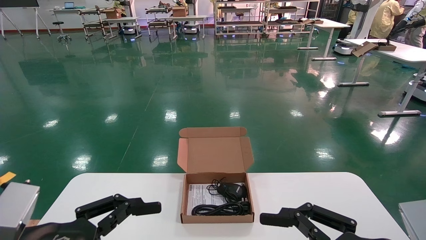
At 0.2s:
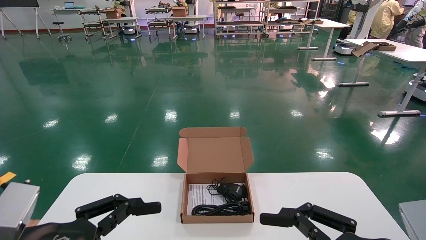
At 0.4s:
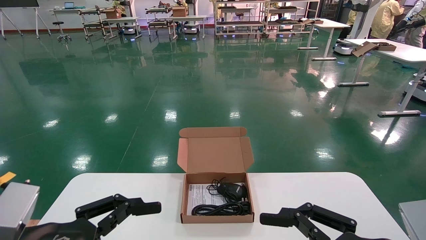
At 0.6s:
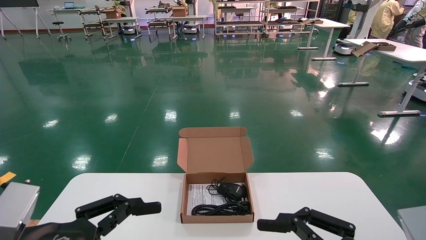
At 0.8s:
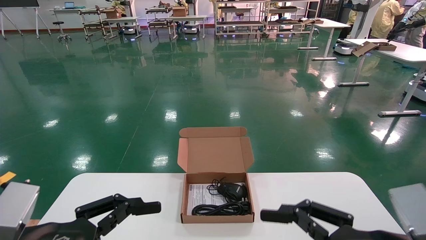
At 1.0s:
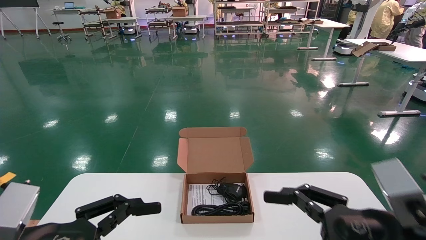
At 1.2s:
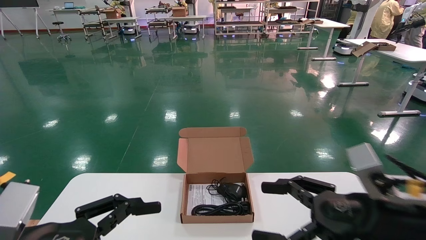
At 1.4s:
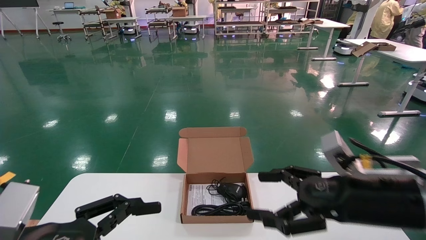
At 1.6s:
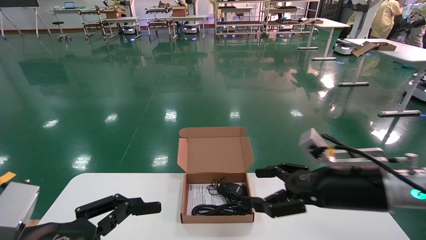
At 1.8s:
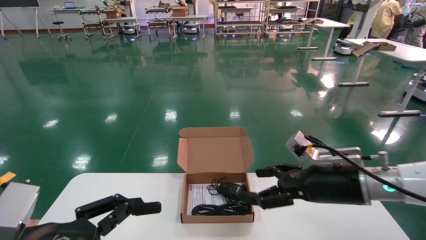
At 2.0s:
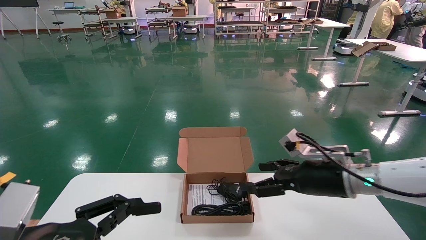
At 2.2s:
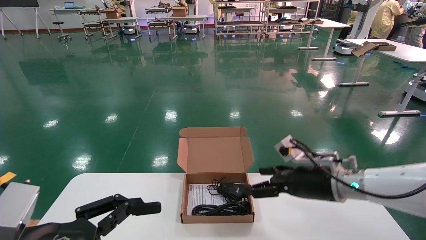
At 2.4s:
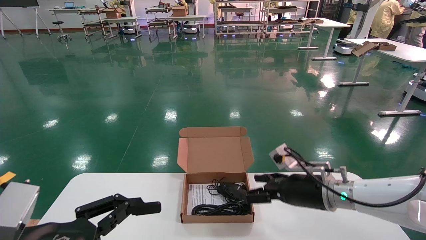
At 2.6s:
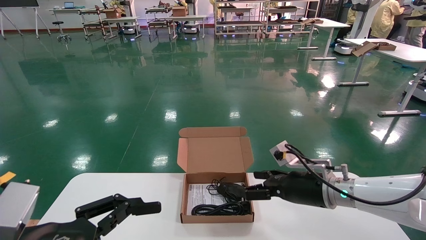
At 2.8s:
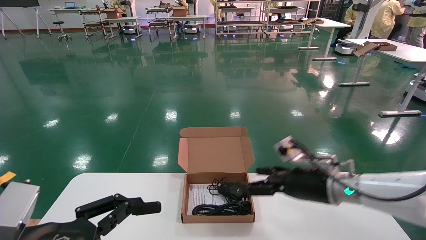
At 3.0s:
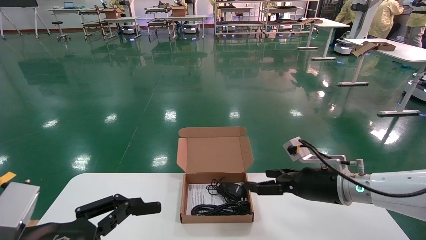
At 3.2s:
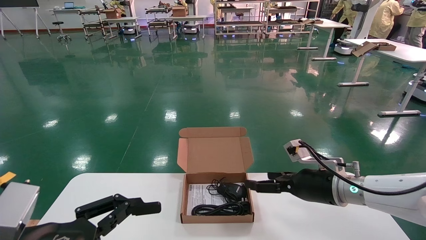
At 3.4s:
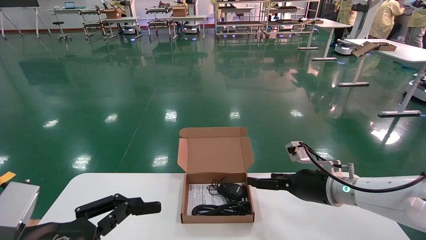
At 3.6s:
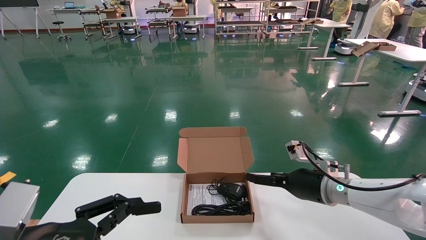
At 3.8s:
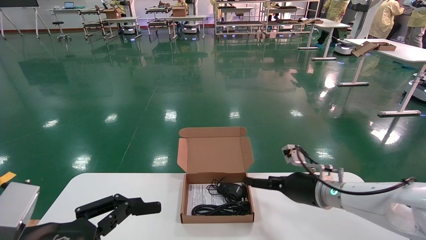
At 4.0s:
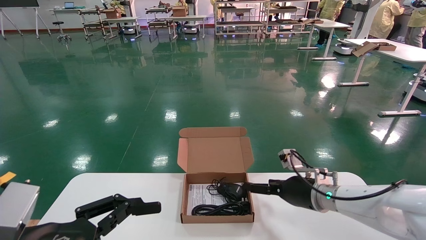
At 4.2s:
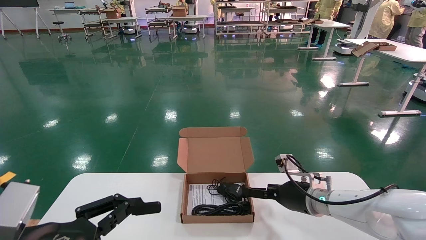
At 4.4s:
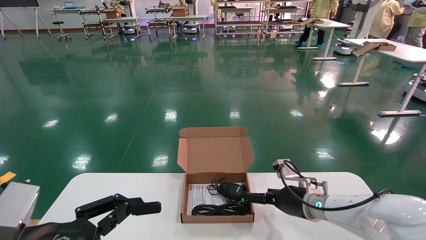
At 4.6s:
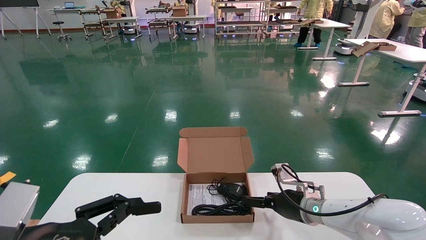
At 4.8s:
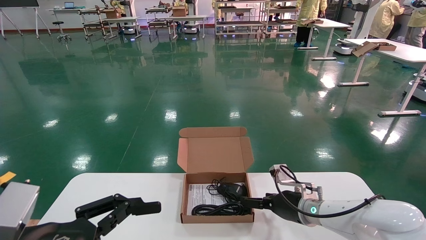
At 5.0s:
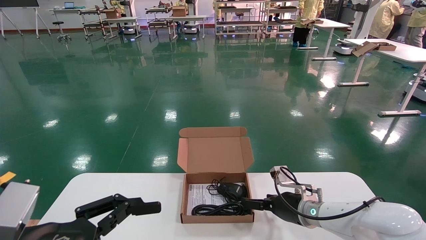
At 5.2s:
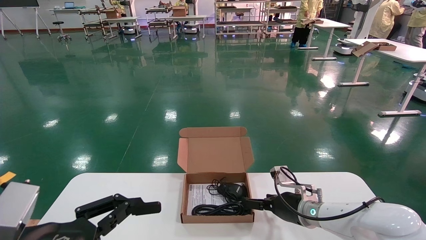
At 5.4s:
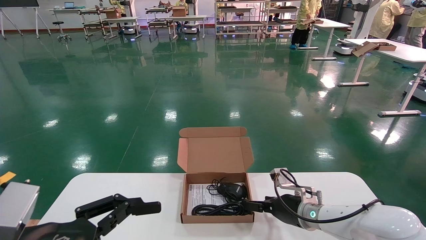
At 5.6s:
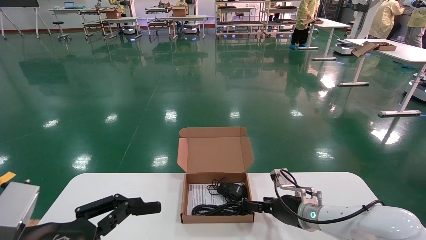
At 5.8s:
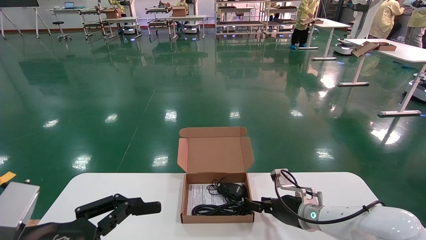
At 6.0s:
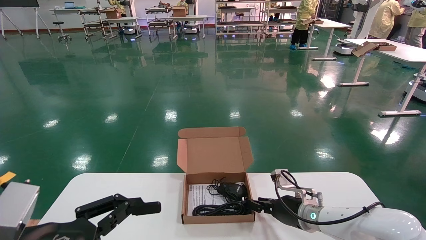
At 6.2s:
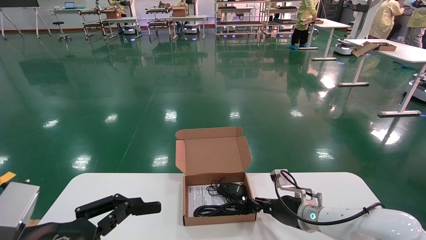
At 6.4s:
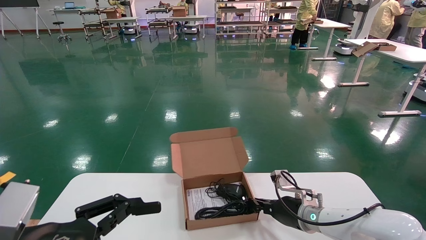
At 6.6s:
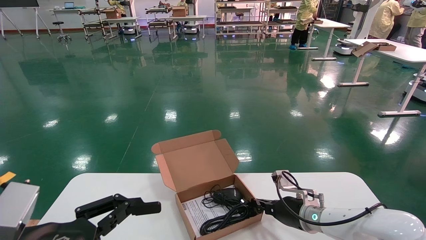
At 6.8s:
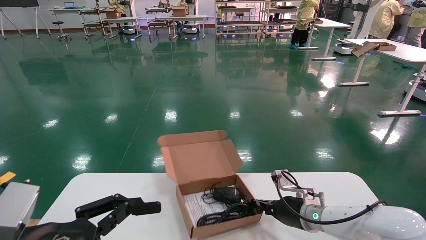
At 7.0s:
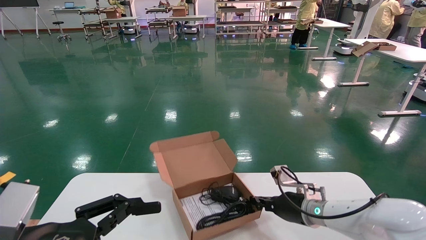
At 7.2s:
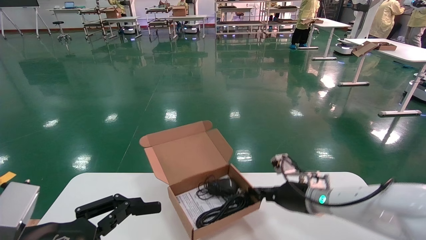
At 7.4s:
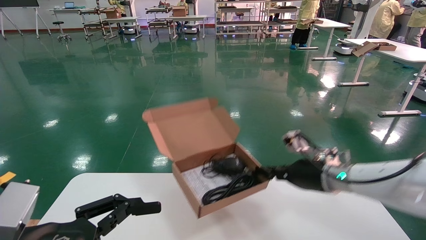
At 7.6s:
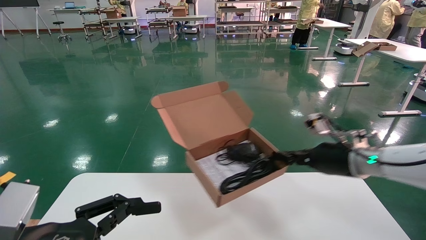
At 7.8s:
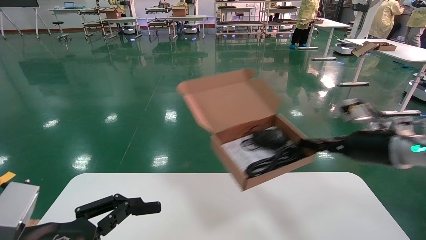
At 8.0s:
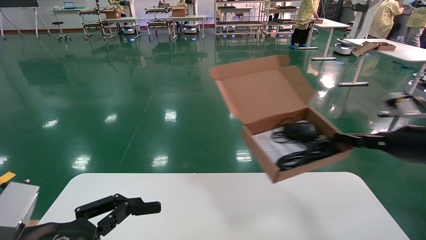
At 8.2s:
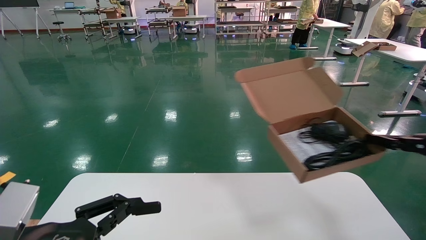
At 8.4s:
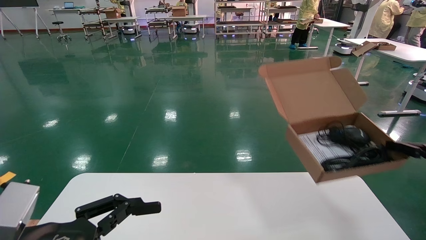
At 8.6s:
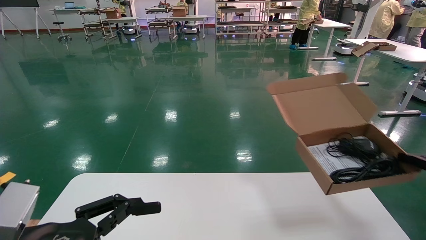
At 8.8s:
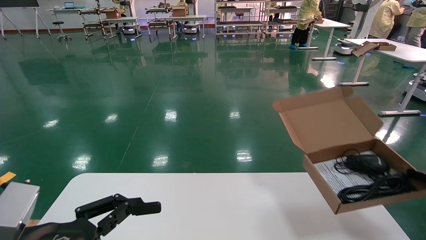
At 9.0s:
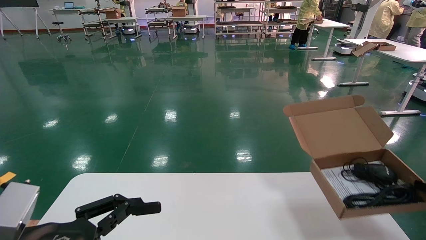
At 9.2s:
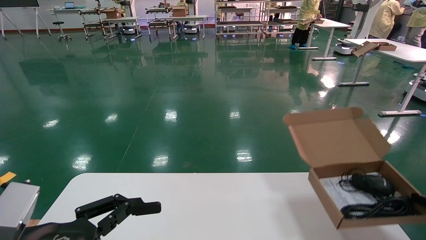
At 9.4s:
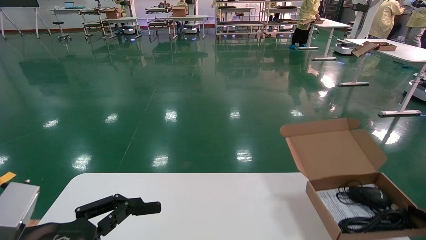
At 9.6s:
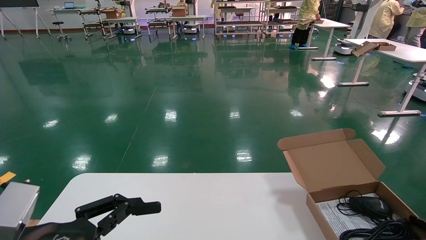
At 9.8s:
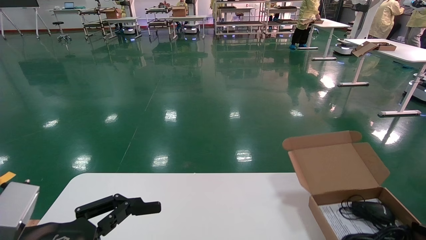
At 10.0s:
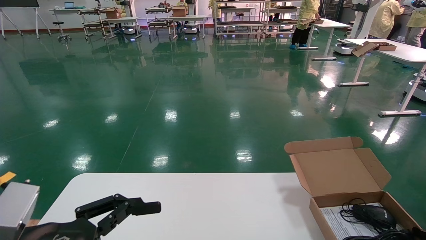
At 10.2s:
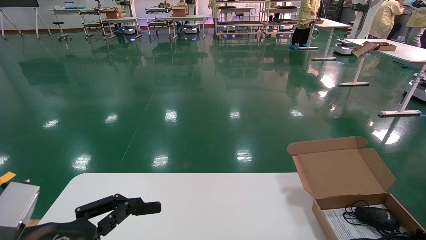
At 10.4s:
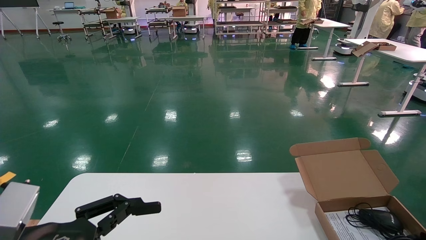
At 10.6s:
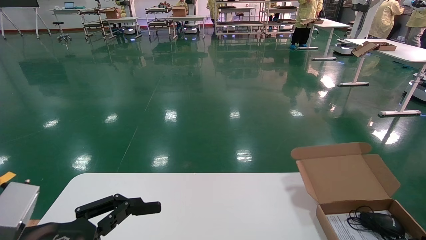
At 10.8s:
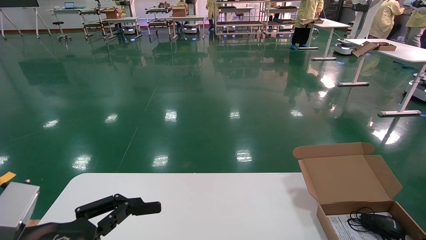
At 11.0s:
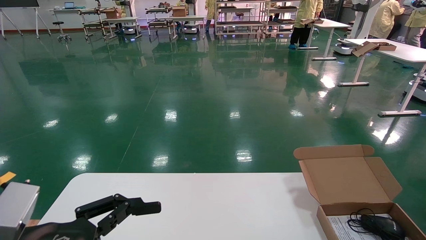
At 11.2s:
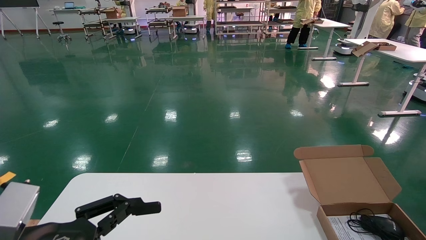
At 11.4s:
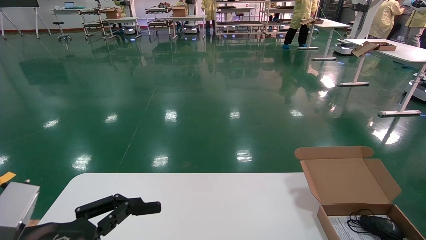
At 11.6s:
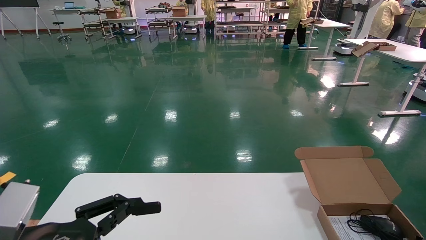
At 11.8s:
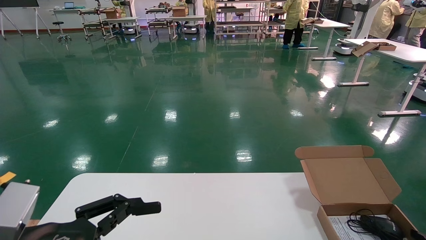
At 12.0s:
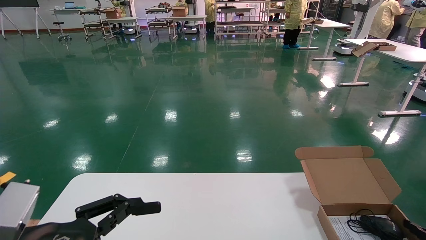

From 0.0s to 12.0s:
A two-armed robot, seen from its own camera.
Task of the whole recording: move the position of the storage box with accessories on the table.
Step, from 1.0s to 6.6s: Grab and pick up the open mouse box from the accessory packaging area.
Step, from 6.8s to 11.6s: Place the open mouse box onto the operation table.
From 0.0s to 1.6s: The right gripper heads forward, covering some 15 cm.
From 1.6s to 3.0s: The right gripper heads forward, covering roughly 10 cm.
From 3.0s to 4.4s: The right gripper is displaced downward and forward by approximately 10 cm.
From 4.4s to 6.0s: The right gripper closes.
From 6.0s to 7.6s: The right gripper shifts about 20 cm upward and to the right, and closes.
From 7.6s to 9.0s: The right gripper travels to the right and backward by some 25 cm.
From 9.0s to 10.4s: The right gripper is displaced downward by approximately 10 cm.
From 10.4s to 12.0s: The right gripper opens.

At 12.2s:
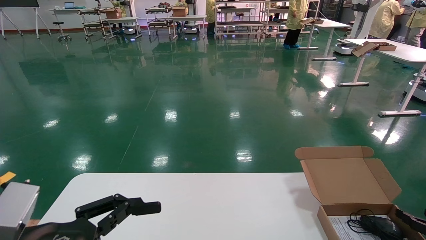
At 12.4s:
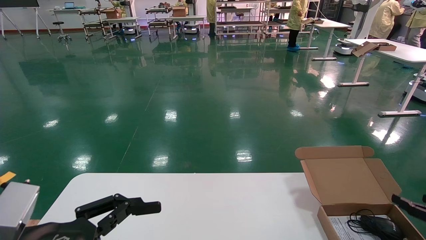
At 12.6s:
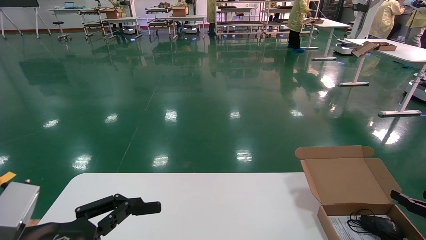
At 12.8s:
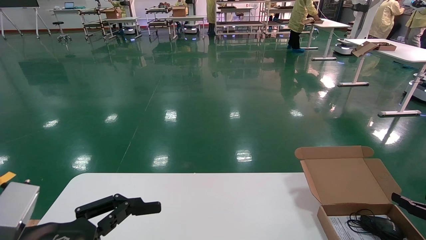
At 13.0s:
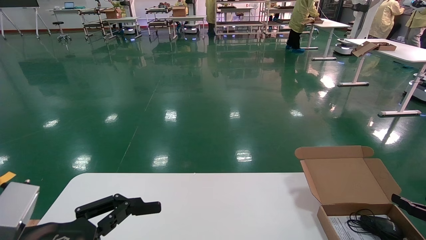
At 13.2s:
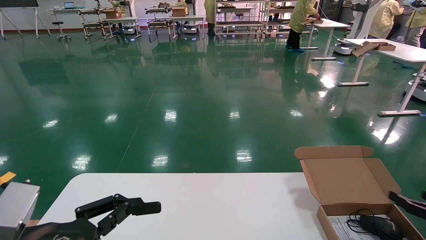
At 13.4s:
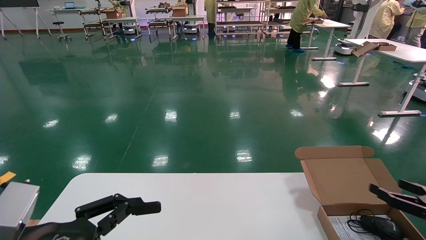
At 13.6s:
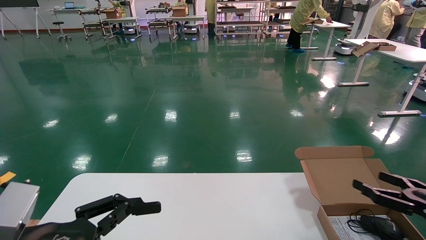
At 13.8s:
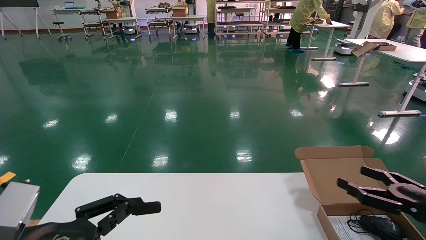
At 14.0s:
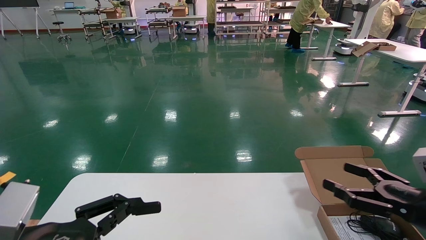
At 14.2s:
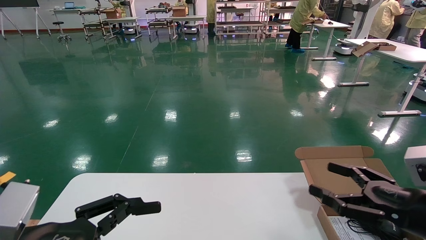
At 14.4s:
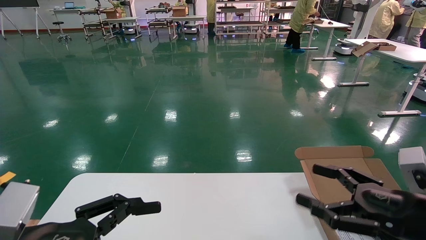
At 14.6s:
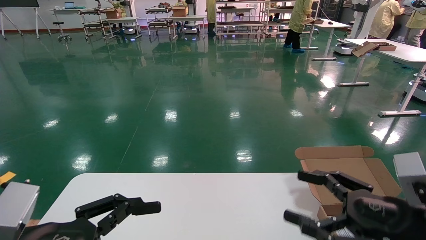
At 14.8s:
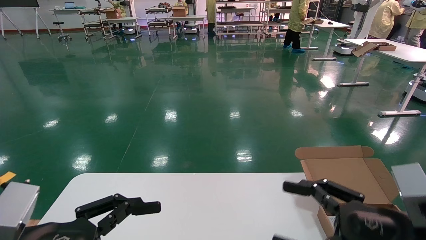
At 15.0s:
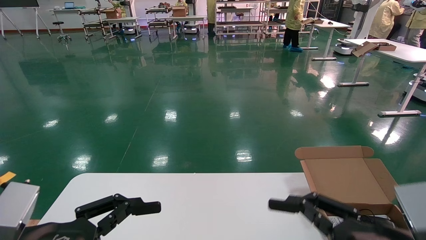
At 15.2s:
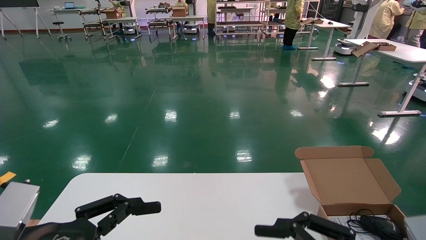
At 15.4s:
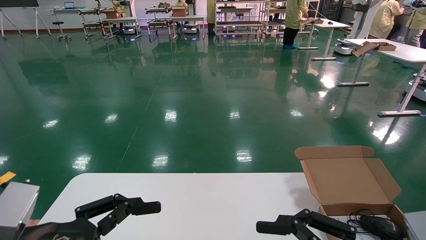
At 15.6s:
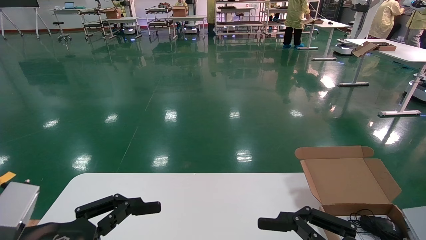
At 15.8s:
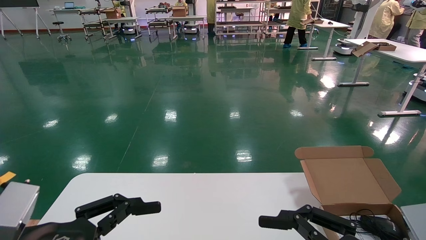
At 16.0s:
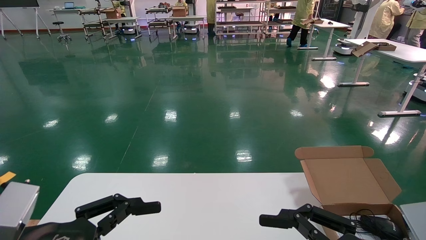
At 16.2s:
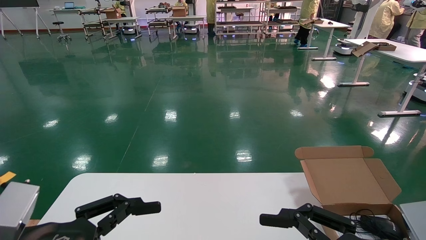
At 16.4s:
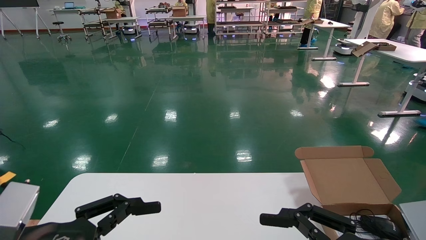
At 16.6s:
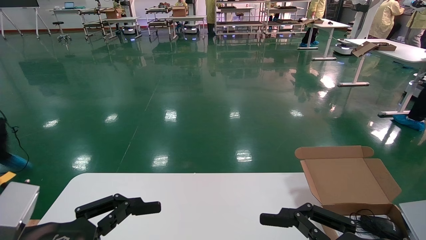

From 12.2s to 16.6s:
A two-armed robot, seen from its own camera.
Task of the whole recording: move the position of the storage box with accessories on the table.
From 12.2s to 13.6s: The right gripper travels to the left and upward by roughly 10 cm, and opens its fingers.
From 13.6s to 15.2s: The right gripper shifts about 25 cm to the left and backward.
From 15.2s to 16.6s: Both grippers stay put.
